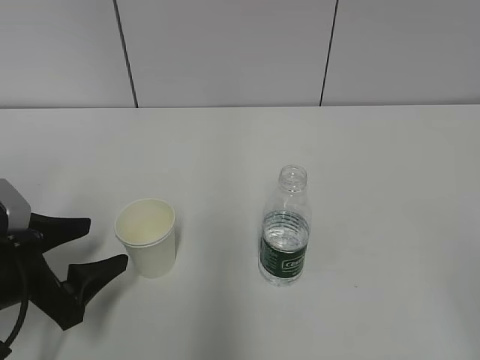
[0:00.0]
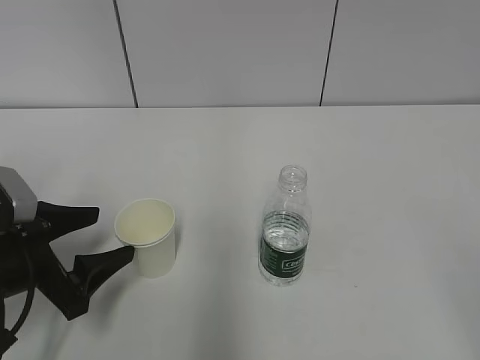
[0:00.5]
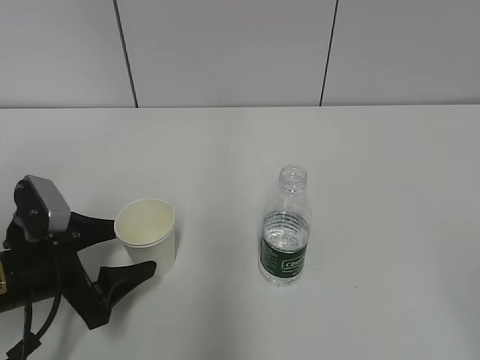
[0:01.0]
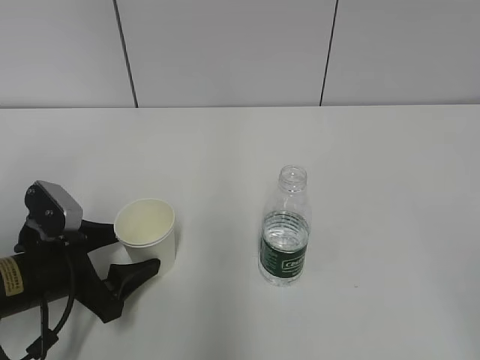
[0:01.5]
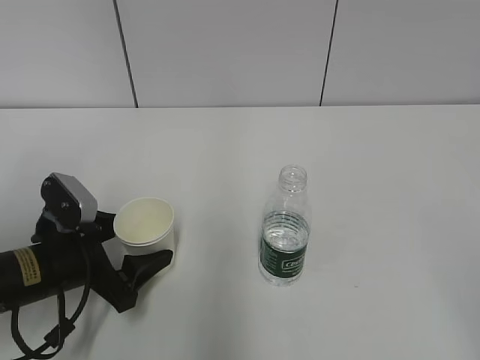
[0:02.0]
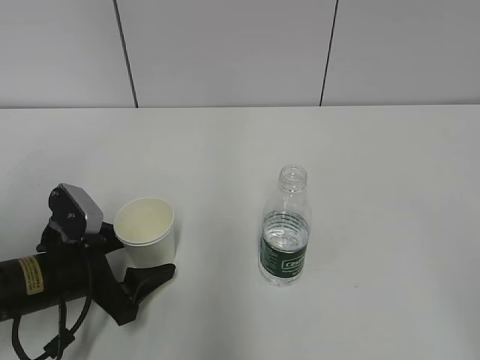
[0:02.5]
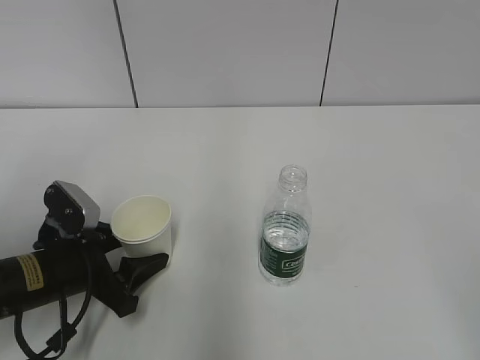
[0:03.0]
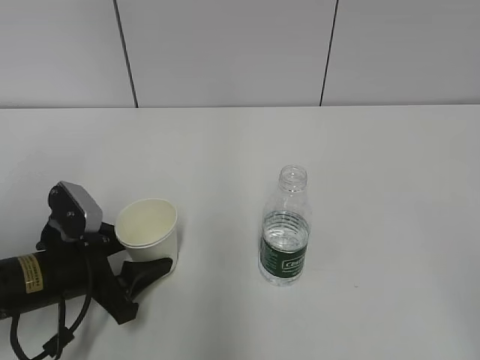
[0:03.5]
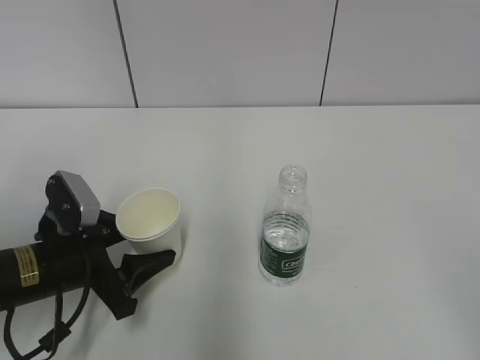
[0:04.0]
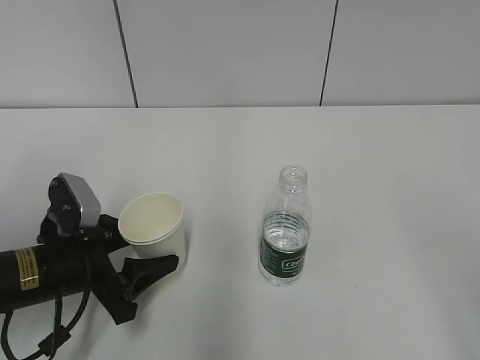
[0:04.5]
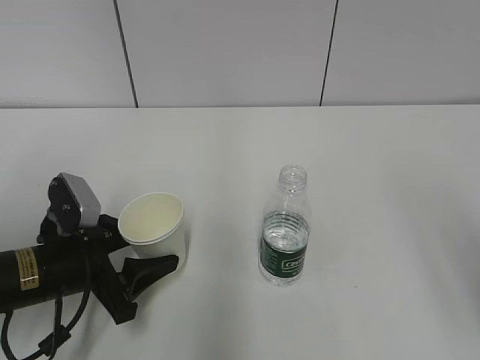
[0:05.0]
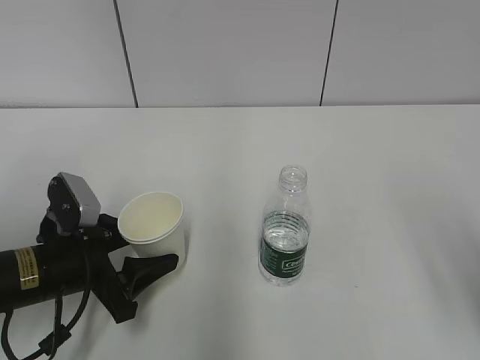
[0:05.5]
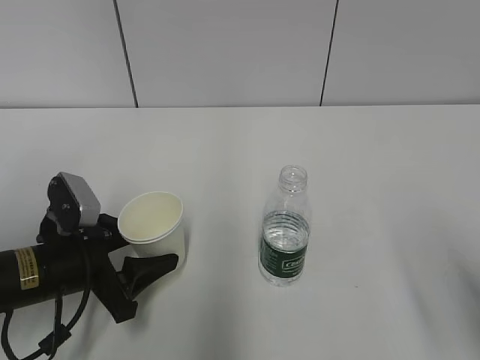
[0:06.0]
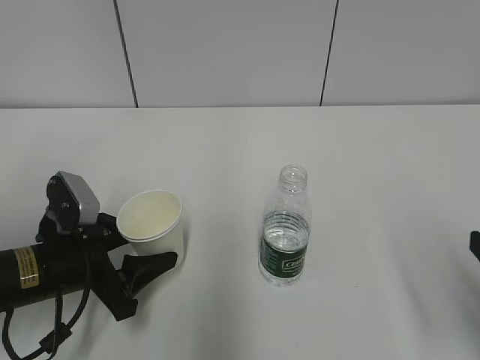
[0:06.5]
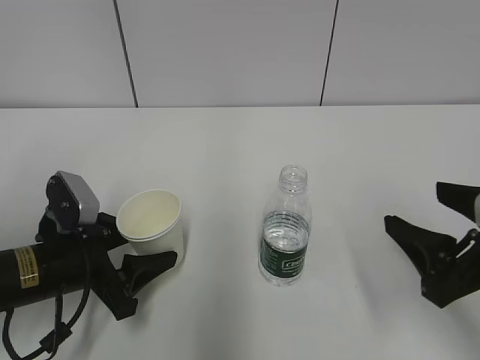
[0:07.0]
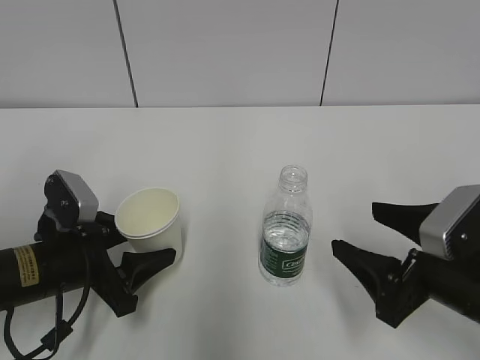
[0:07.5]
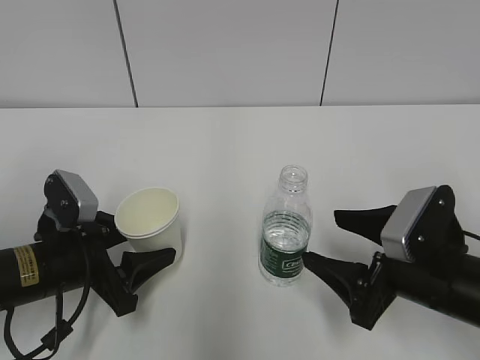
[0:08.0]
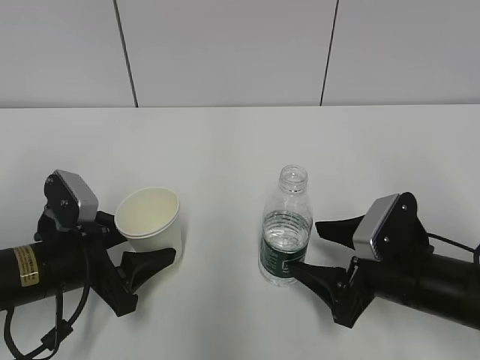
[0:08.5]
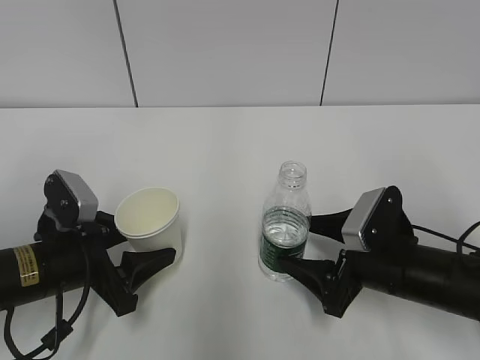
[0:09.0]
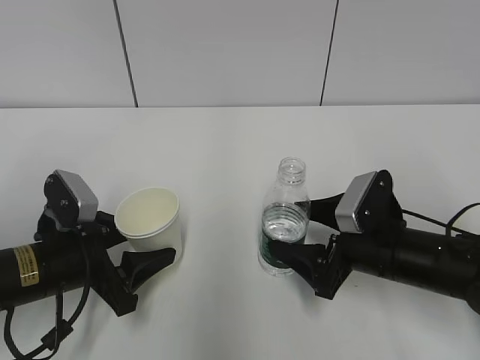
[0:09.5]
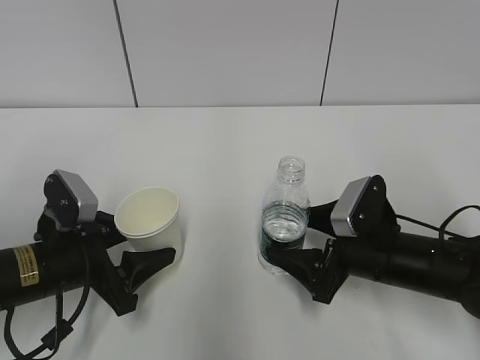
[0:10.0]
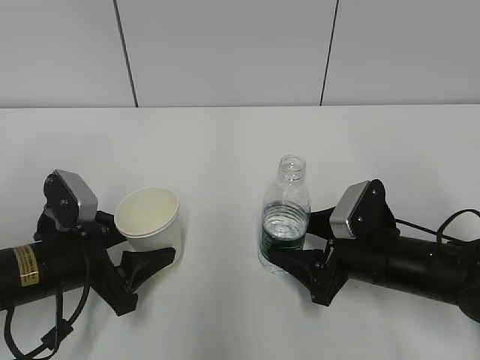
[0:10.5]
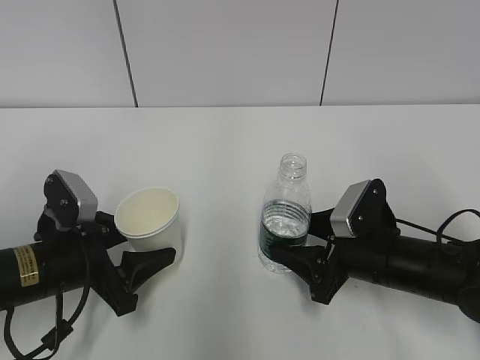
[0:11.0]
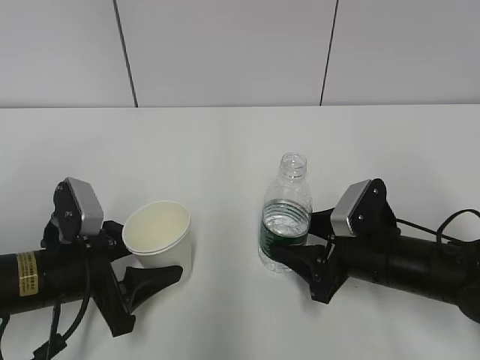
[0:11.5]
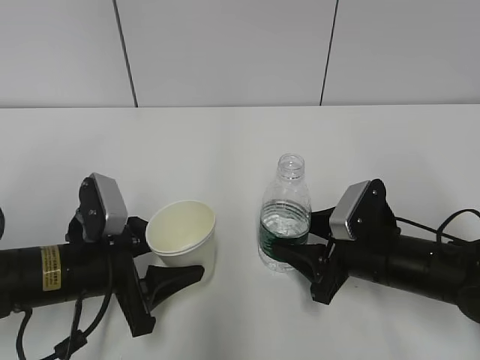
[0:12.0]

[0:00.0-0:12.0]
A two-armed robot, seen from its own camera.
Step, 2.0 to 9.0 s: Grab the water bottle with the right hand.
0.0 to 2.0 s: The left gripper ends up about 5 cm from where it was.
2.0 to 4.0 s: The left gripper closes.
4.0 to 6.0 s: The right gripper heads forward and downward, covering about 15 cm.
6.0 to 8.0 s: The right gripper goes about 15 cm forward, downward and to the left.
8.0 to 10.0 s: The right gripper goes some 5 cm forward.
10.0 to 12.0 s: The right gripper closes.

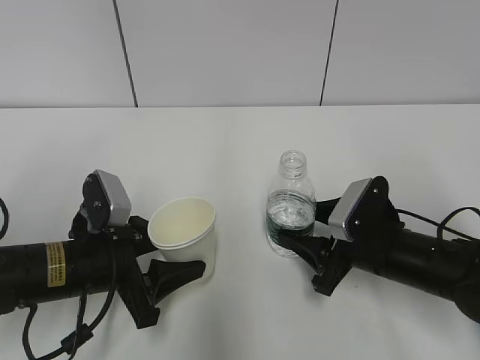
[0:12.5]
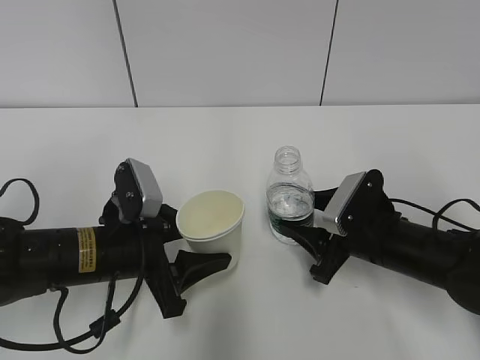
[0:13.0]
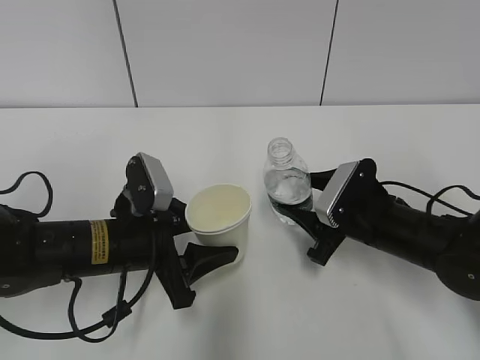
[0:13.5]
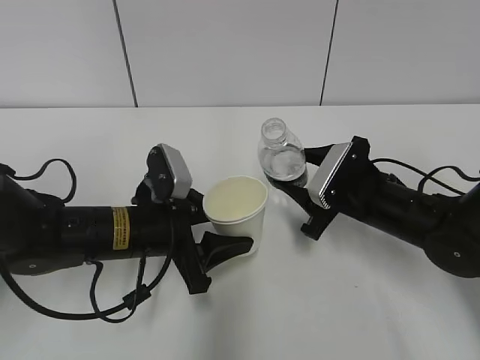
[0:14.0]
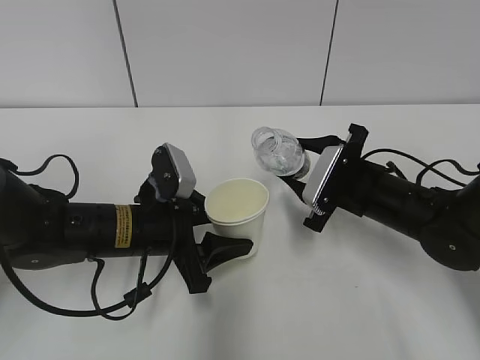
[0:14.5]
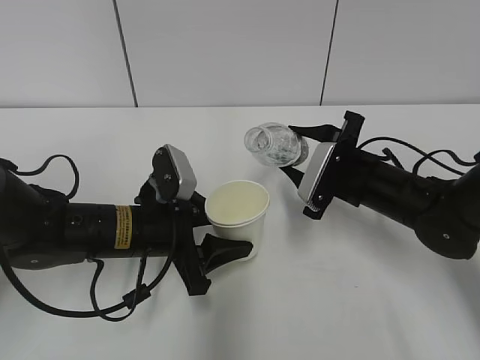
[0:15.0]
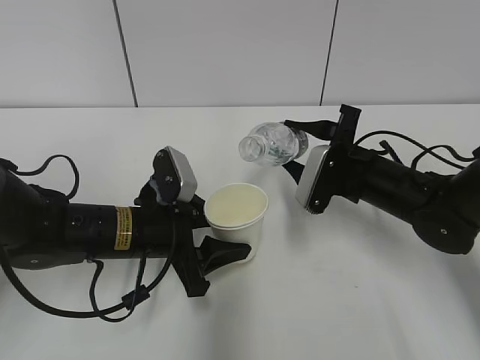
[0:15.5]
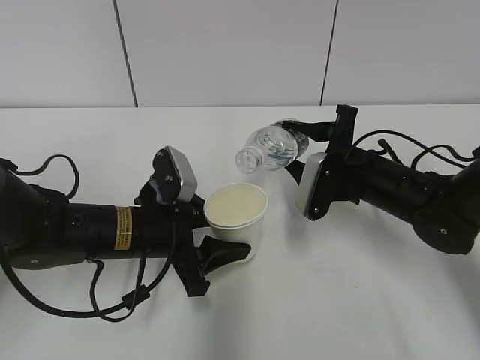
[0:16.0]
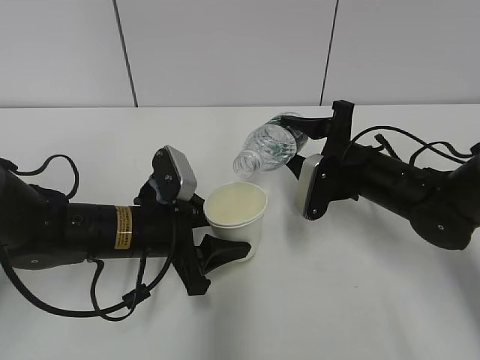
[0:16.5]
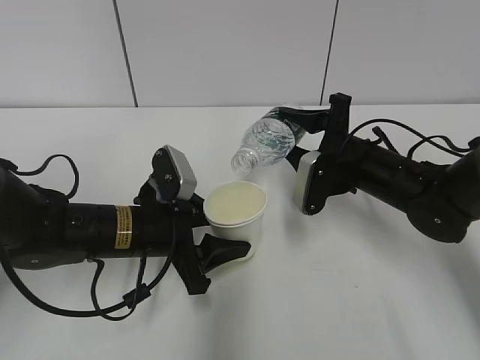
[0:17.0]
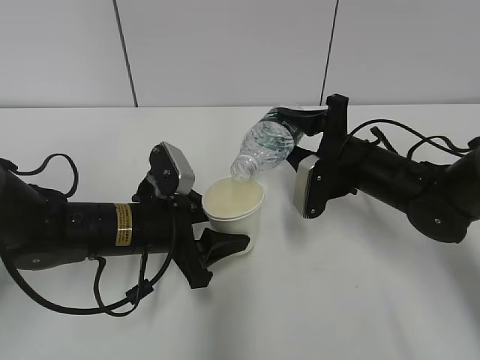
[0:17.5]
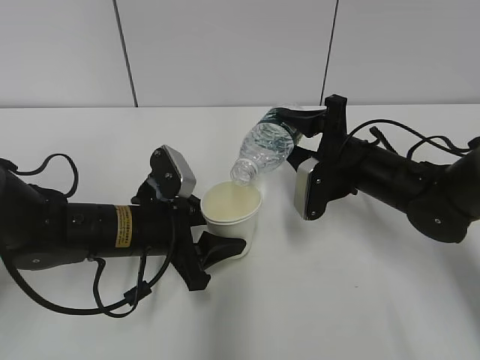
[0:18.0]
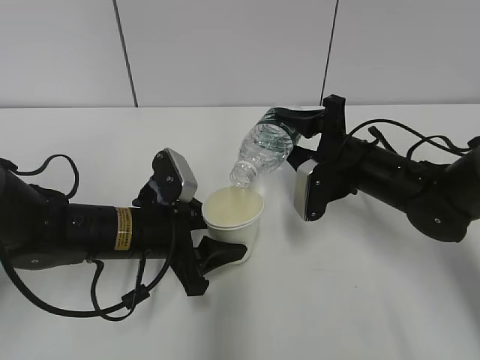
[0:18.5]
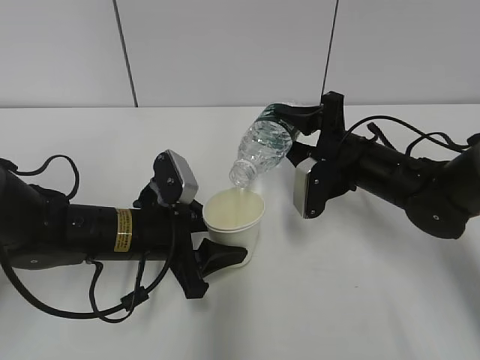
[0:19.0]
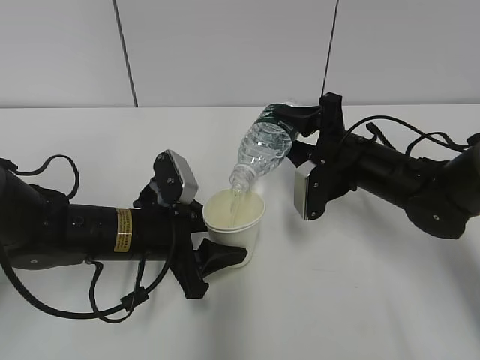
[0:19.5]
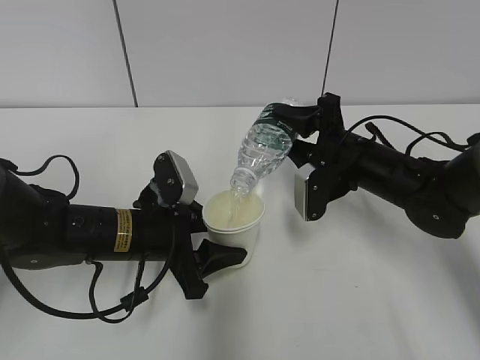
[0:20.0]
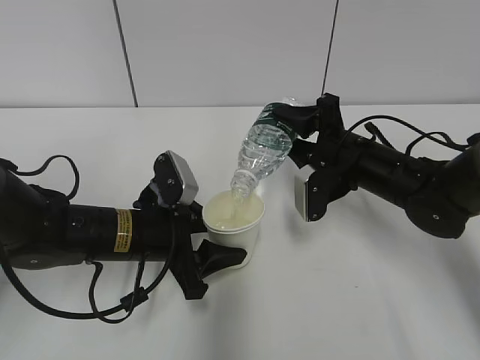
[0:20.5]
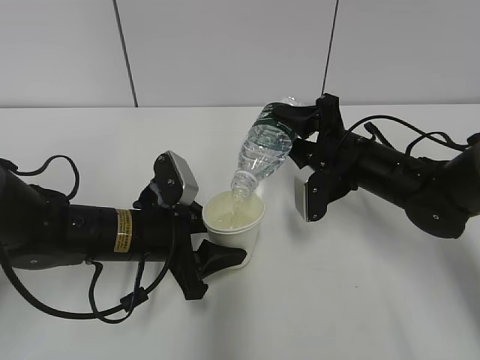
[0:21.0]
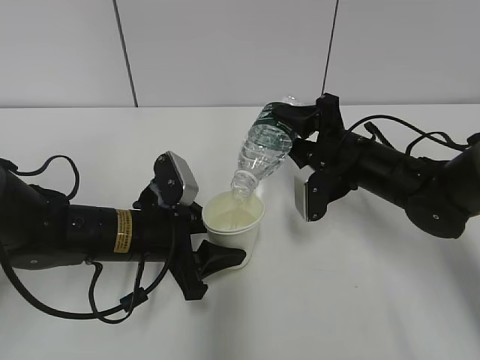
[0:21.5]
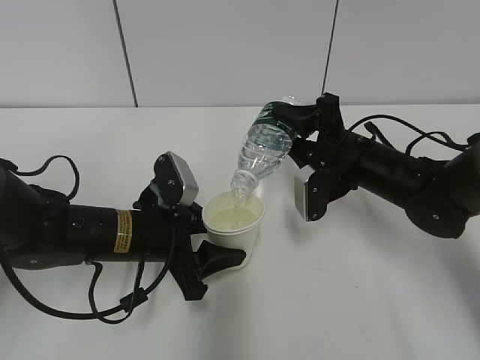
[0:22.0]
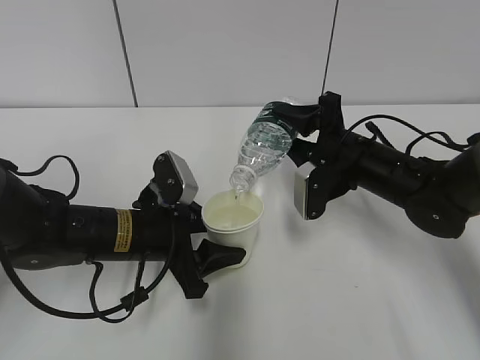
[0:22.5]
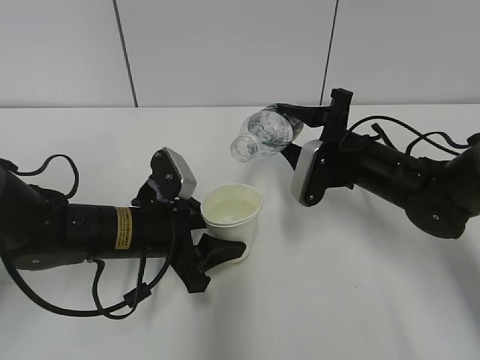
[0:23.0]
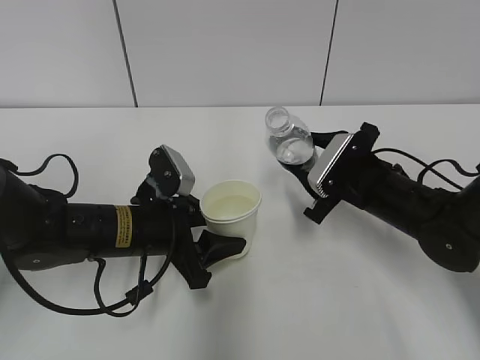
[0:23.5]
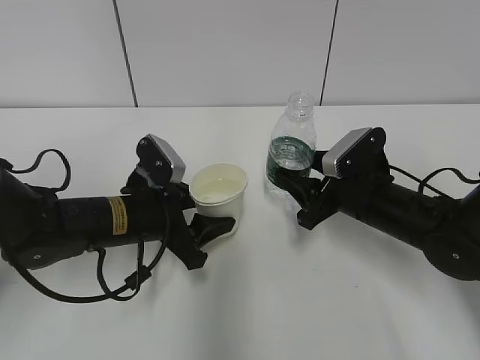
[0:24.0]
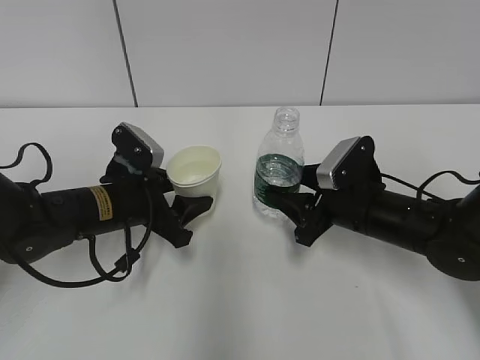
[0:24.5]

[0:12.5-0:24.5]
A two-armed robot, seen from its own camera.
Step, 14.5 to 17.5 s: Fill water with the left hand.
Step, 14.5 to 17.5 s: Pour water with the right hand.
Step, 18.0 to 18.5 s: Collect water with the right hand.
12.5 to 14.5 s: The left gripper shifts about 5 cm to the right, while the right gripper heads forward, covering roughly 5 cm.
16.5 to 18.5 s: There are only small adjustments of the grippers.
18.5 to 20.5 s: The grippers stay close to where they were, moving slightly.
20.5 to 22.5 s: The two grippers keep their place.
22.5 to 24.5 s: The right gripper ends up approximately 5 cm from where it was.

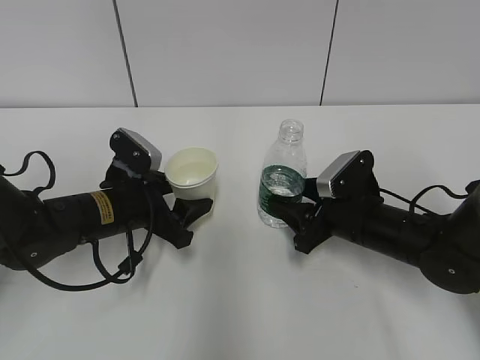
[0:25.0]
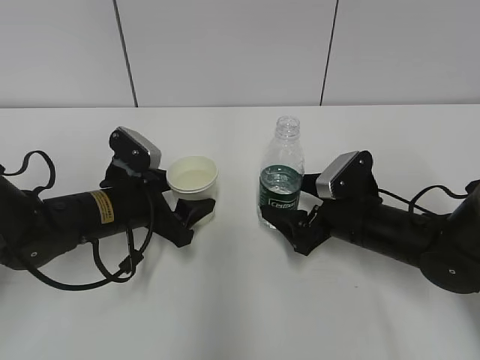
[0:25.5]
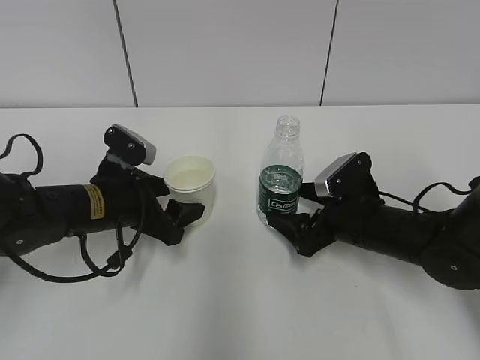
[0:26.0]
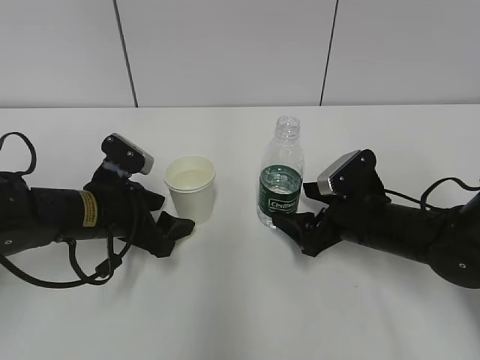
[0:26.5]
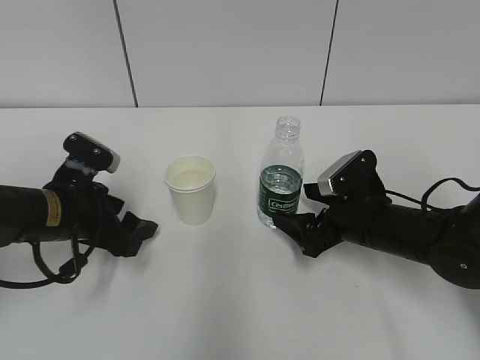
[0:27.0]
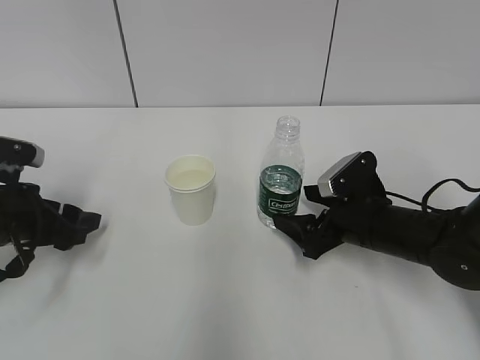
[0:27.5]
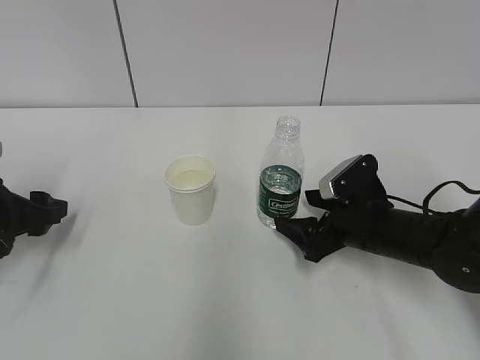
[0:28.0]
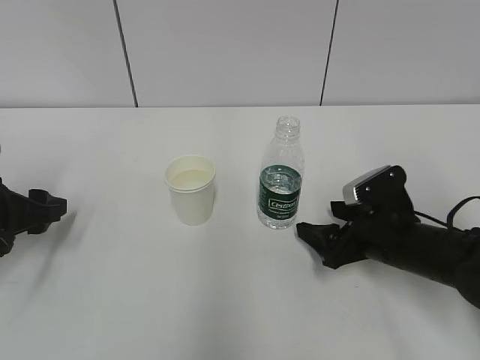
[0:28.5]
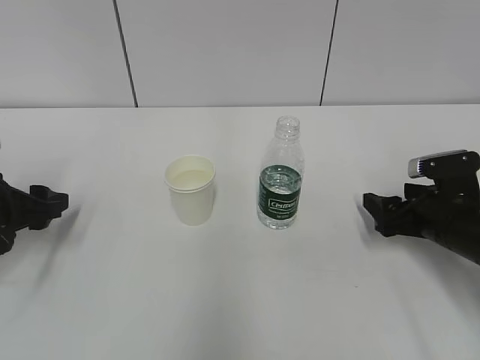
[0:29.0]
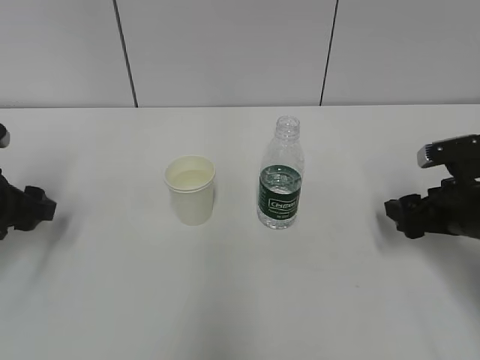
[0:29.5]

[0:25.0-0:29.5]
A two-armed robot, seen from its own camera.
25.0 to 27.0 s: The left gripper moves to the left, approximately 5 cm. Meanwhile the right gripper opens its fingers.
27.0 to 29.5 s: The right gripper shifts about 10 cm to the right; the left gripper shifts some 10 cm to the left.
